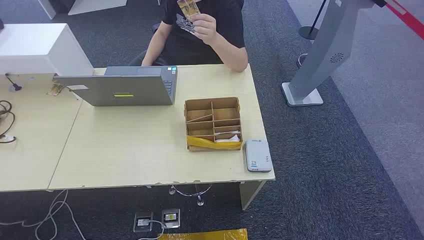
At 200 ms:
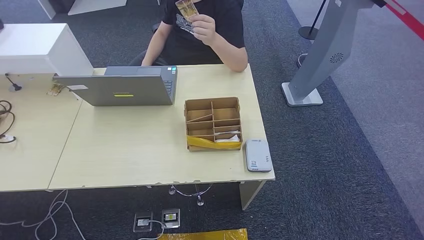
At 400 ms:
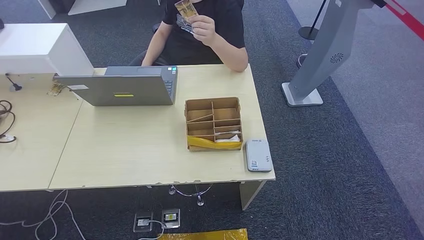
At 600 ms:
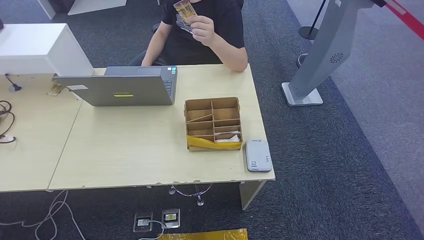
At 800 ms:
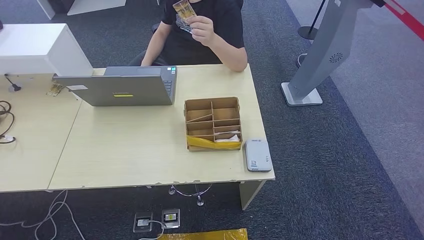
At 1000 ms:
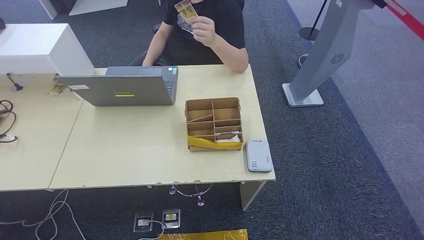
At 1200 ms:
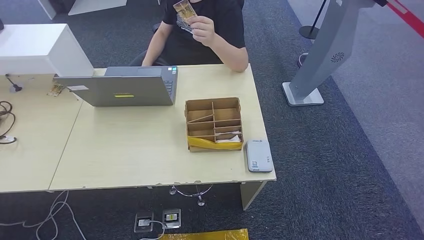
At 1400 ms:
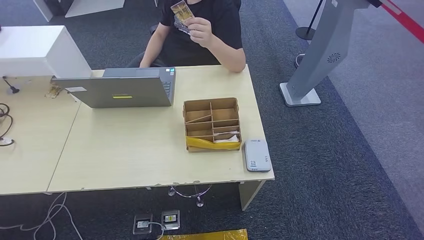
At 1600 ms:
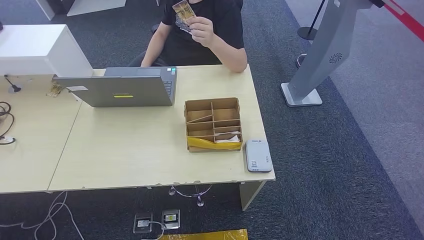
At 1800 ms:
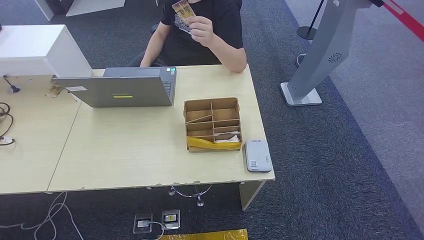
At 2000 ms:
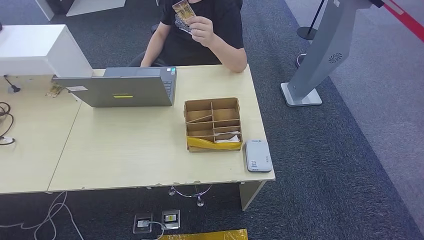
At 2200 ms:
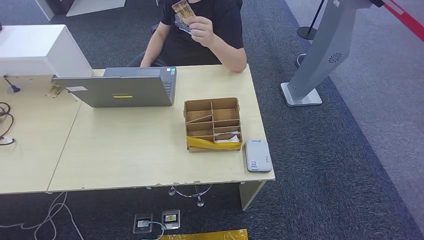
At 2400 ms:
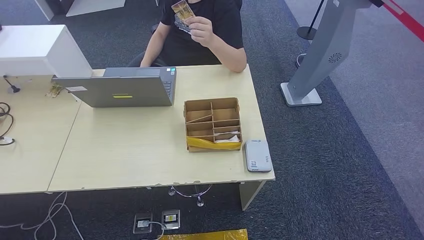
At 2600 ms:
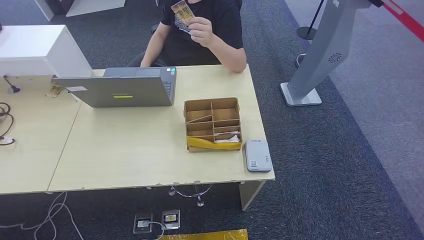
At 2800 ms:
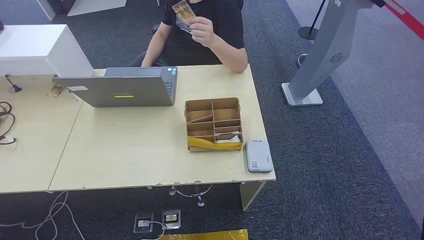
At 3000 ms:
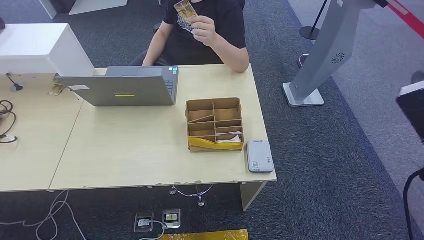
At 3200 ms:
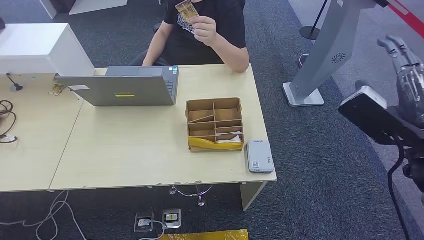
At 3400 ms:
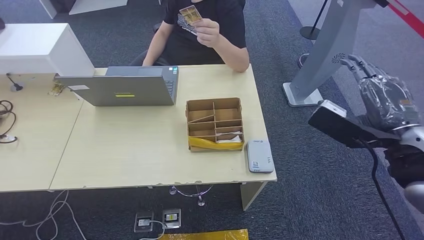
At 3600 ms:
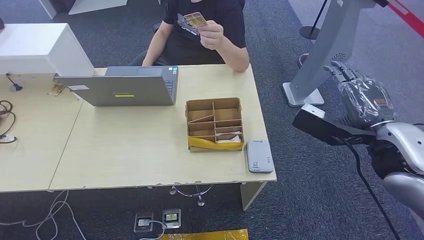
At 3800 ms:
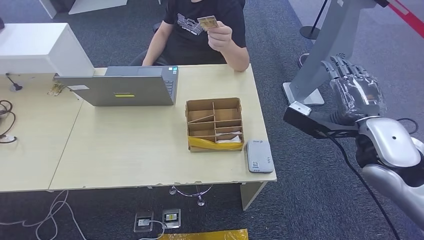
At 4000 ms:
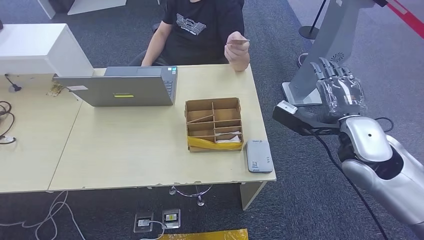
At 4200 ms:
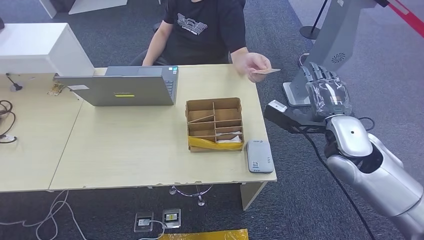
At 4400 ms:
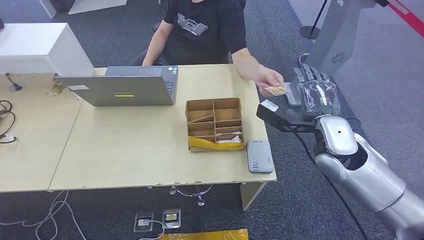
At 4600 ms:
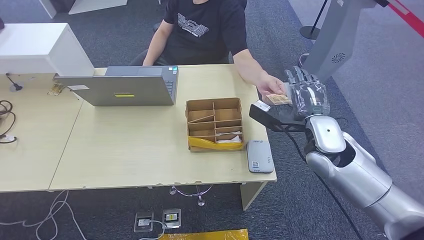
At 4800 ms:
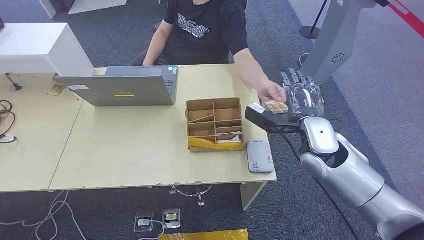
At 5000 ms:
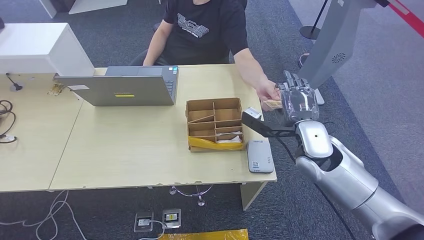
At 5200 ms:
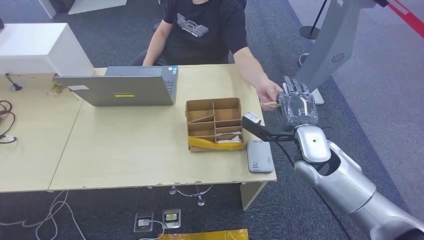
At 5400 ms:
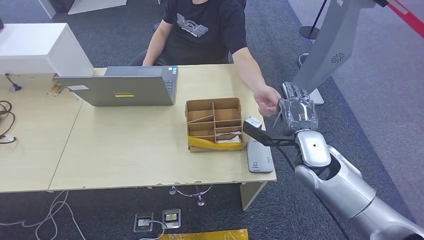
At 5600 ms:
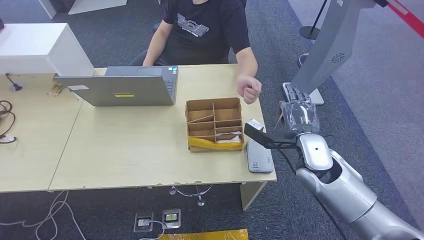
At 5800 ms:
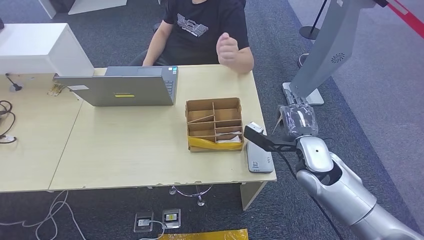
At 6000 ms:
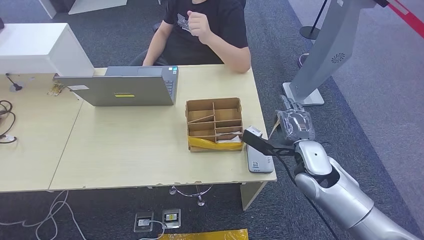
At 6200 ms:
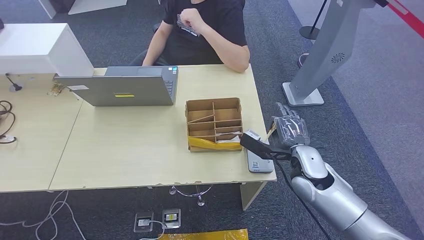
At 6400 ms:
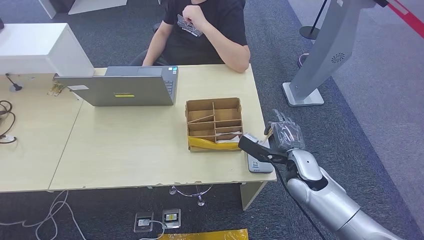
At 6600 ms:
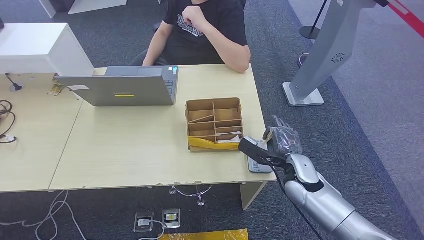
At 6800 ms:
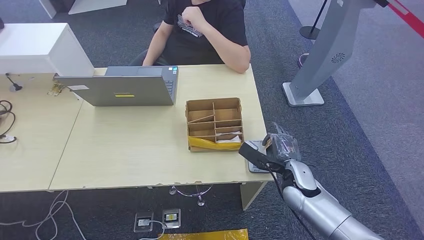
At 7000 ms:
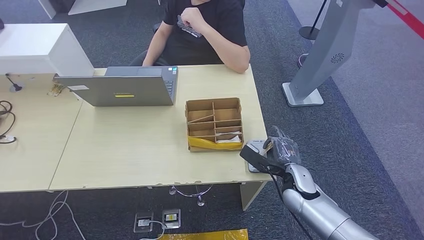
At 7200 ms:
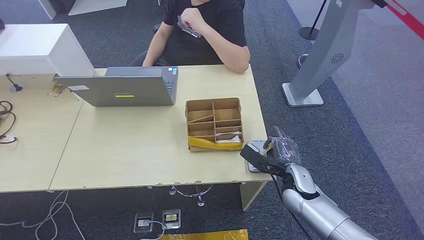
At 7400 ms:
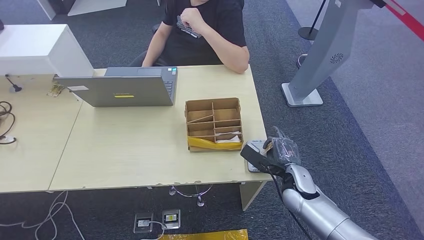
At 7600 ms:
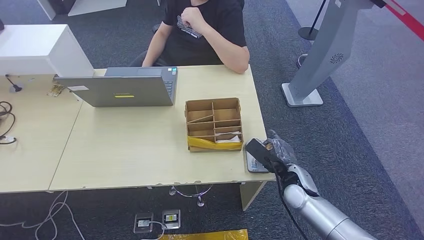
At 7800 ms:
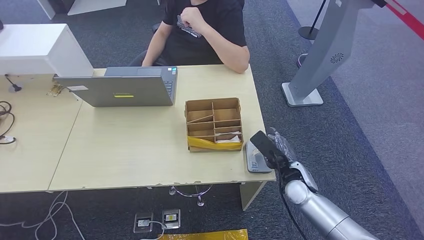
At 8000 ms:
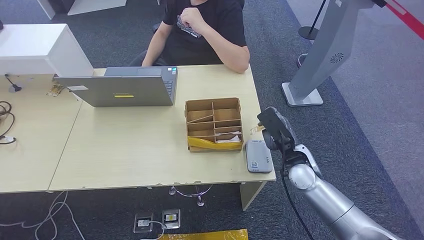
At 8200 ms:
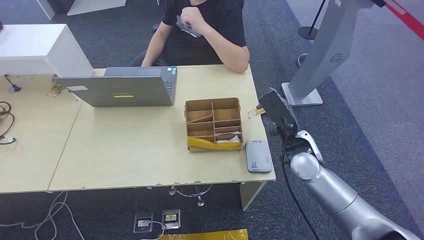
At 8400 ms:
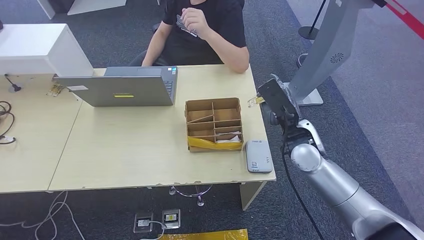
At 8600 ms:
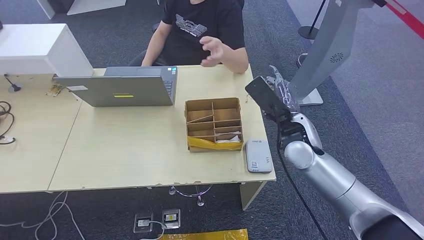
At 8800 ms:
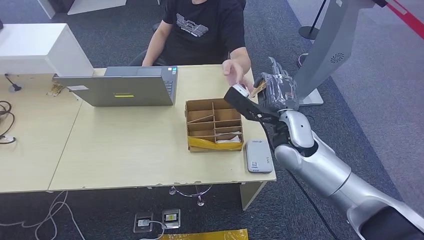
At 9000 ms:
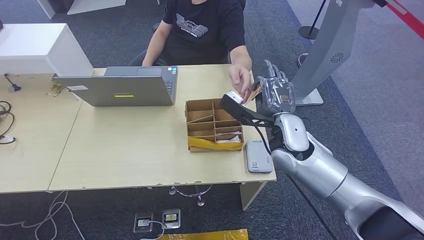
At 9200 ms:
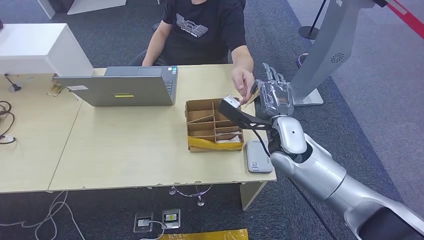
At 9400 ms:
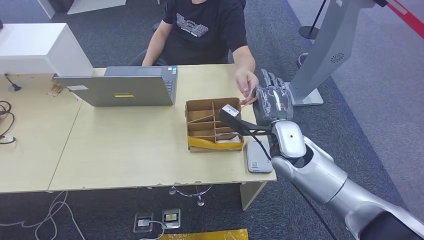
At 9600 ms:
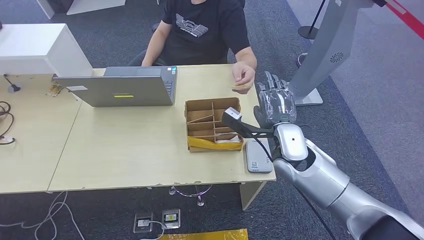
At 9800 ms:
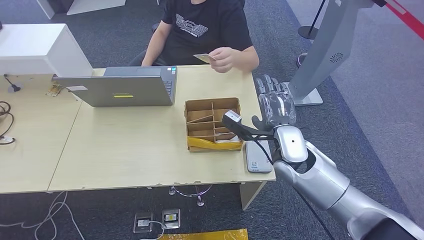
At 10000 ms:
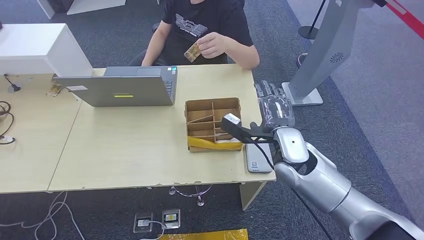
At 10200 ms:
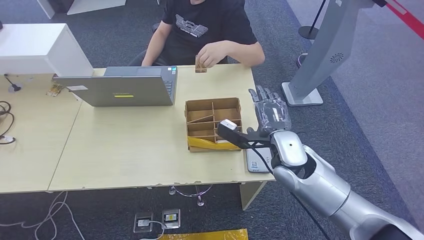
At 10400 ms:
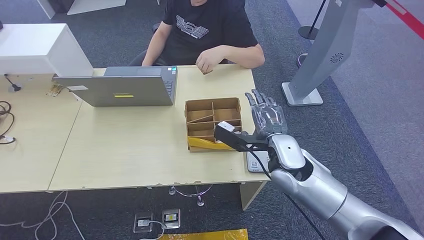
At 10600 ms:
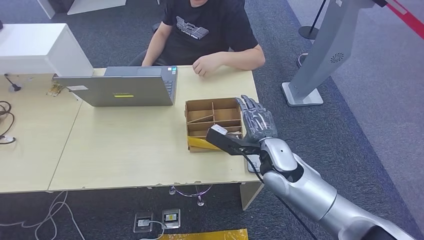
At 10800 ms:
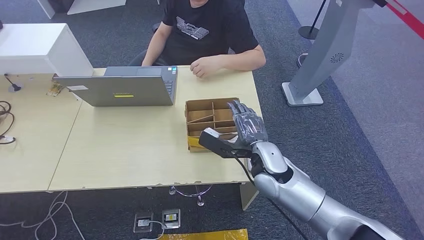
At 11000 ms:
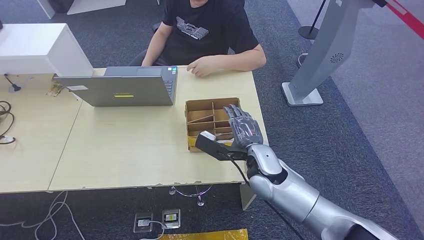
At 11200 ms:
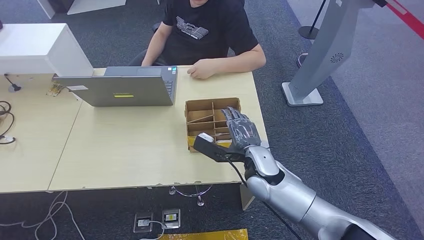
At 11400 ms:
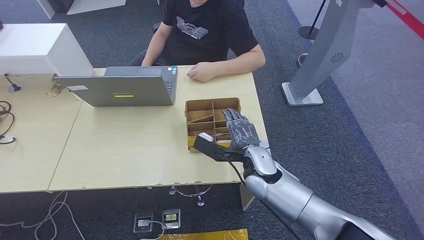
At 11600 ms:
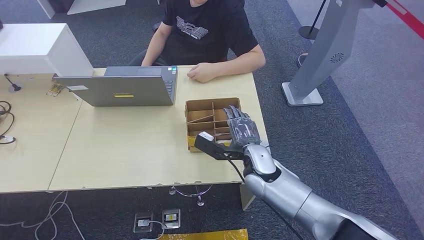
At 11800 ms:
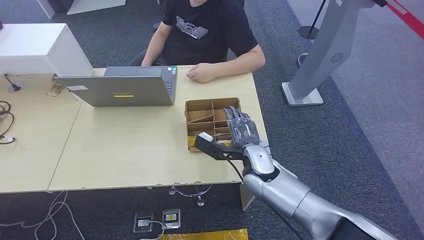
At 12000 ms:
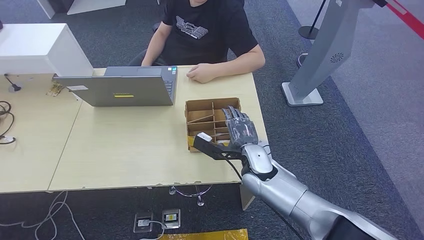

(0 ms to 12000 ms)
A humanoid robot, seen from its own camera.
Step, 0 ms - 5400 ms: Take the ID card from the person's hand.
Step, 5800 ms - 7600 ms: Place the ID card on the card reader.
Step, 7800 ms - 10200 ms: Hand the ID card to the person.
1600 ms - 3000 ms: The right hand travels upward, to the left and forward by roughly 30 cm.
3000 ms - 4400 ms: The right hand heads forward, to the left and downward, covering some 20 cm.
4400 ms - 6000 ms: The right hand heads downward, covering roughly 10 cm.
6000 ms - 7600 ms: The right hand travels downward by roughly 10 cm.
7600 ms - 9000 ms: The right hand is displaced upward and to the left by roughly 15 cm.
9000 ms - 10400 ms: The hands make only small movements.
10400 ms - 12000 ms: The right hand travels downward and to the left by roughly 10 cm.

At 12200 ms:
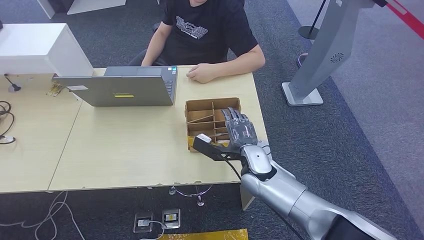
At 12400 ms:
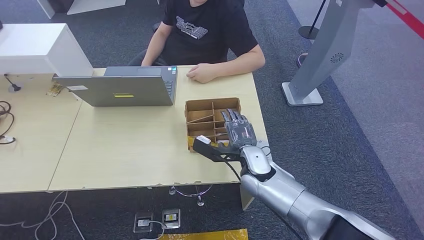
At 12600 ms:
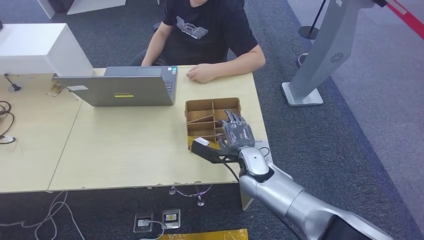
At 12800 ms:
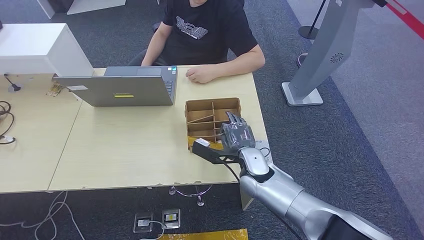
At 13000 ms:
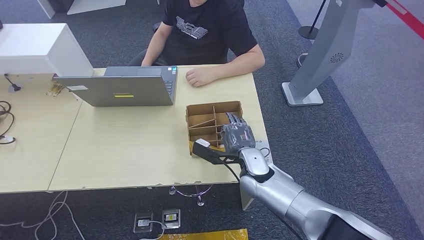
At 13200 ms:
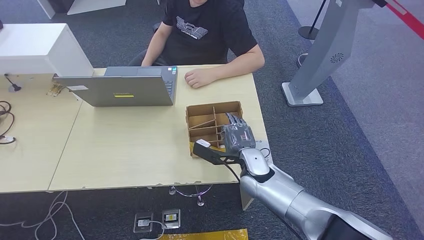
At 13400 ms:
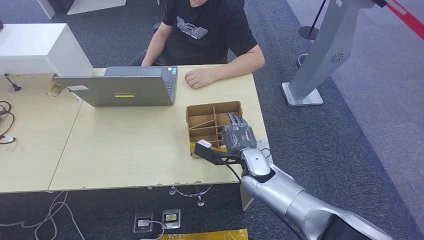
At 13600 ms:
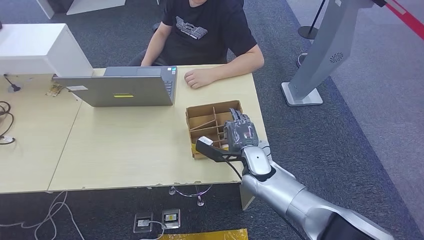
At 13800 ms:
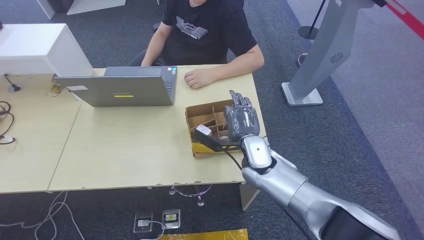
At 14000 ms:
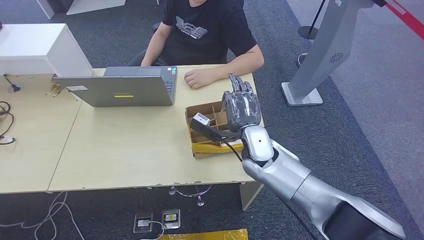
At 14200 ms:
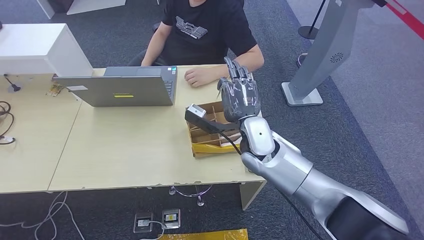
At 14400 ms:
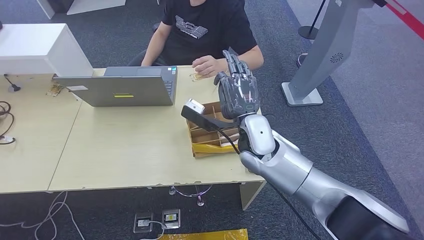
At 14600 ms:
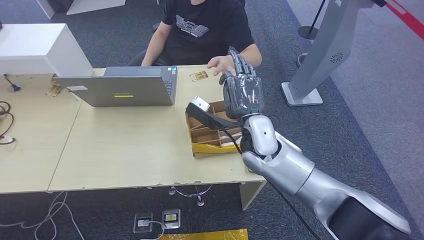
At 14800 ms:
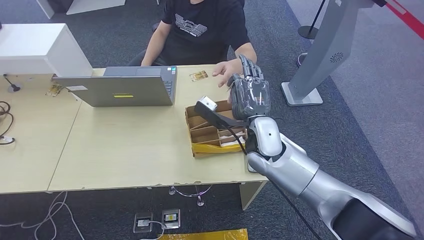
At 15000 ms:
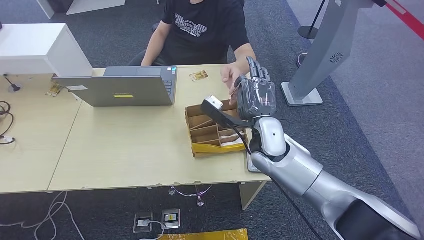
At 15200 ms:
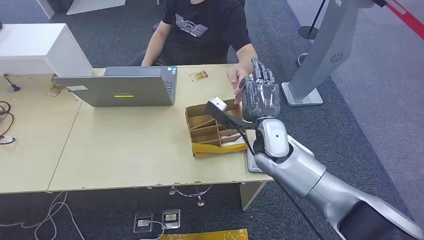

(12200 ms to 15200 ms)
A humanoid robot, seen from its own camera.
Step, 12200 ms - 14600 ms: Pick up the room key from the key card box.
Step, 14800 ms - 15000 ms: Hand the room key to the person.
12200 ms - 13800 ms: There are only small adjustments of the hands.
13800 ms - 15200 ms: The right hand moves upward, about 5 cm.
